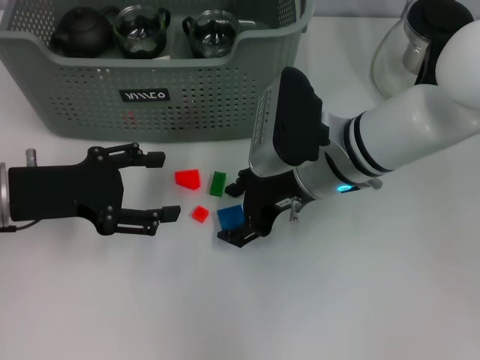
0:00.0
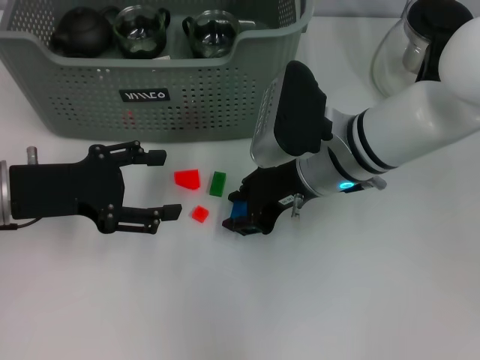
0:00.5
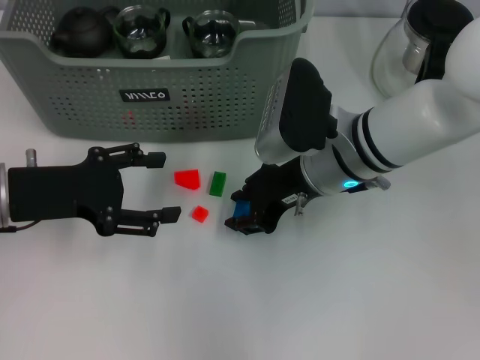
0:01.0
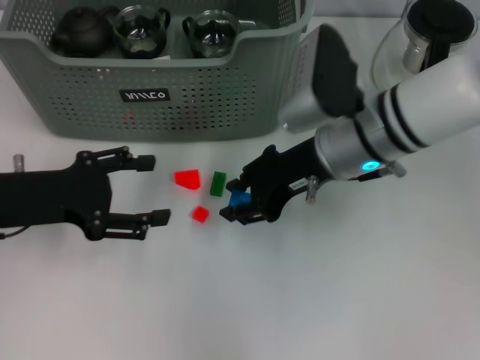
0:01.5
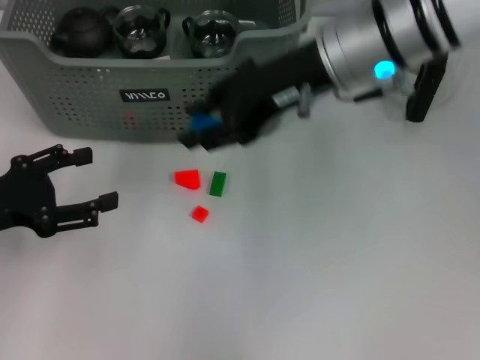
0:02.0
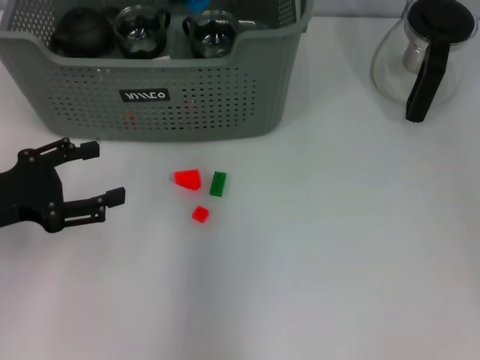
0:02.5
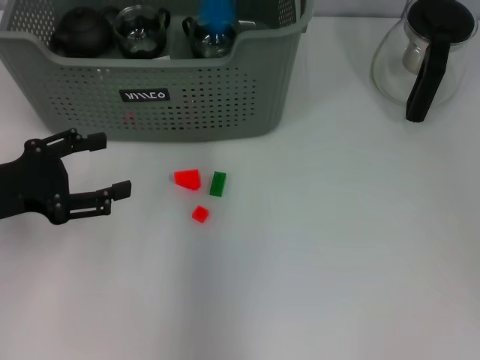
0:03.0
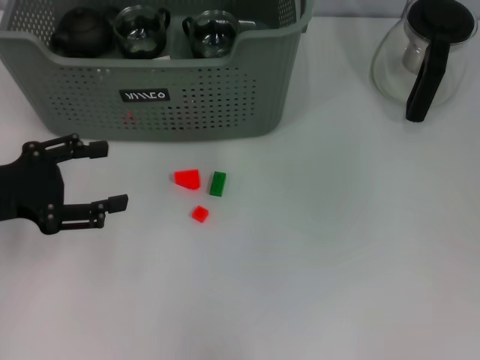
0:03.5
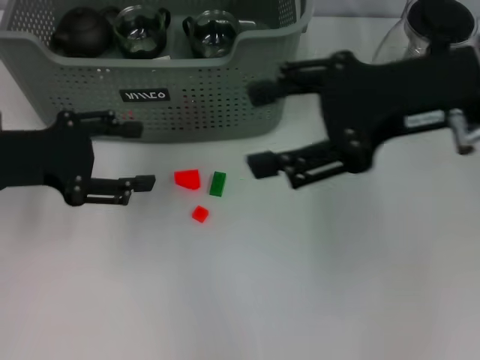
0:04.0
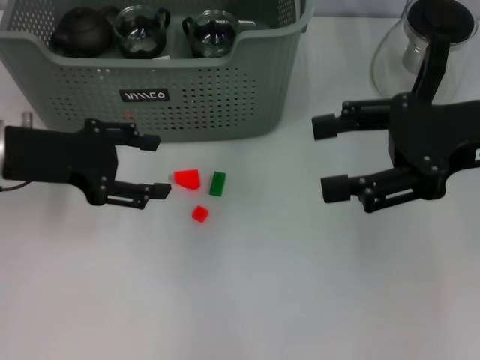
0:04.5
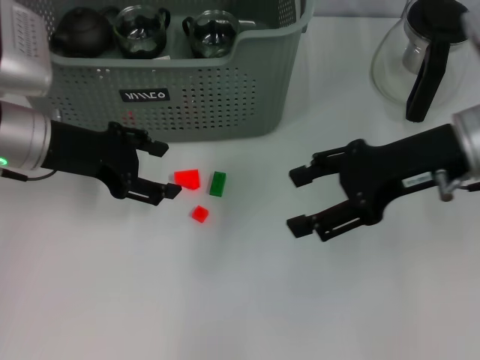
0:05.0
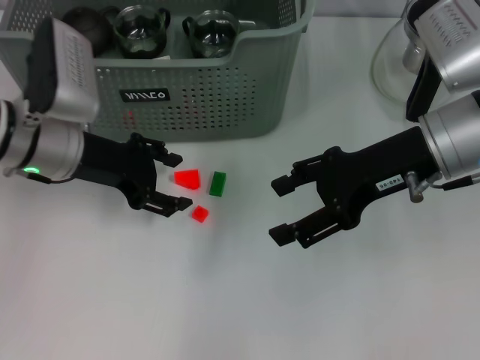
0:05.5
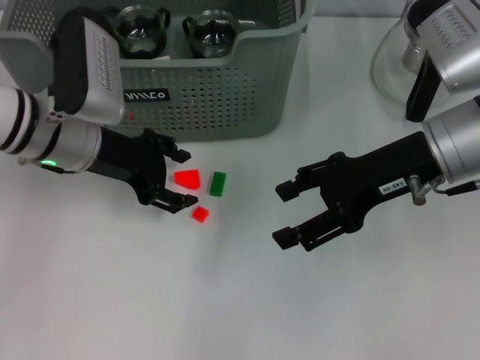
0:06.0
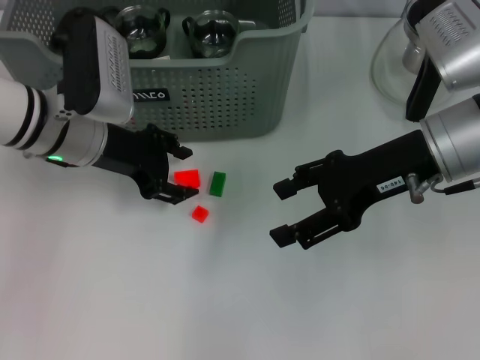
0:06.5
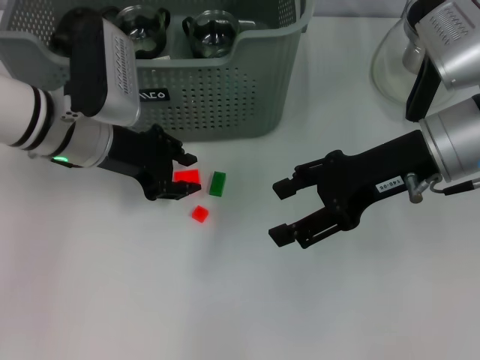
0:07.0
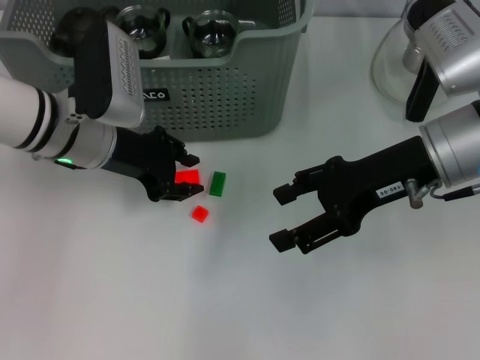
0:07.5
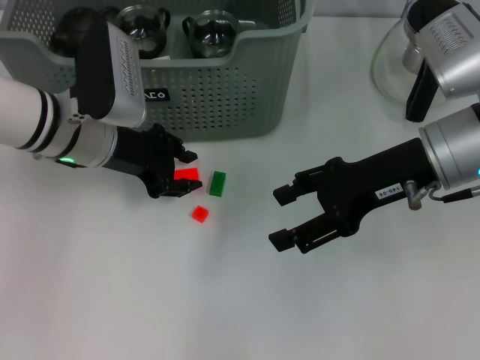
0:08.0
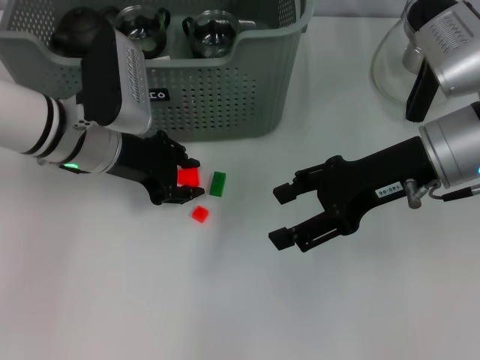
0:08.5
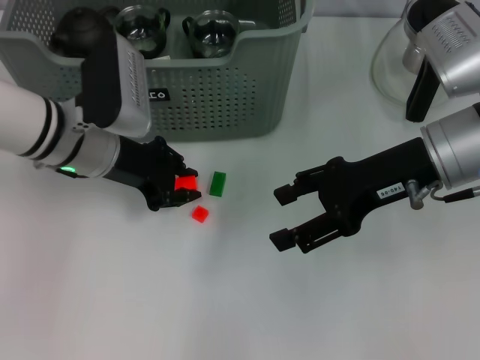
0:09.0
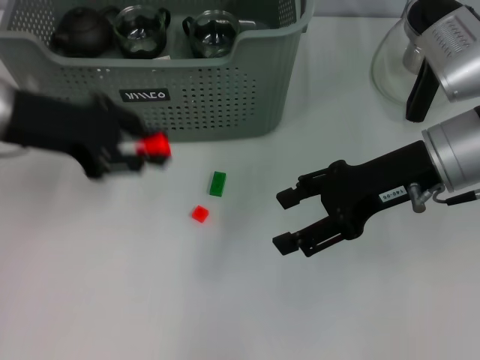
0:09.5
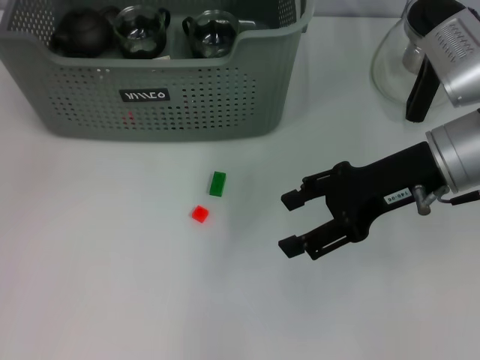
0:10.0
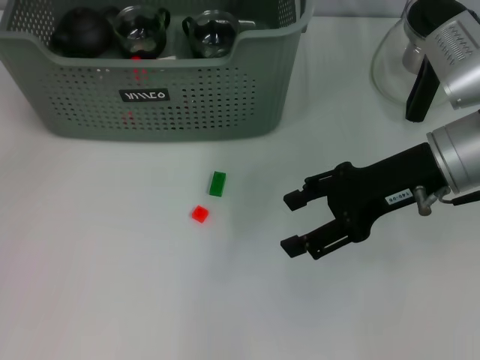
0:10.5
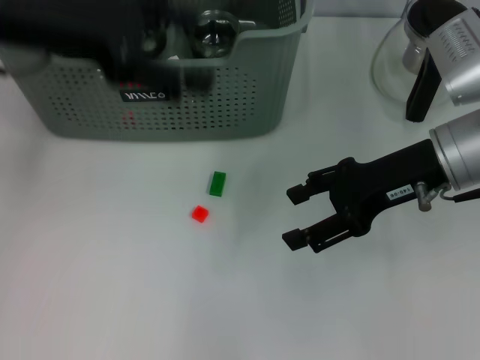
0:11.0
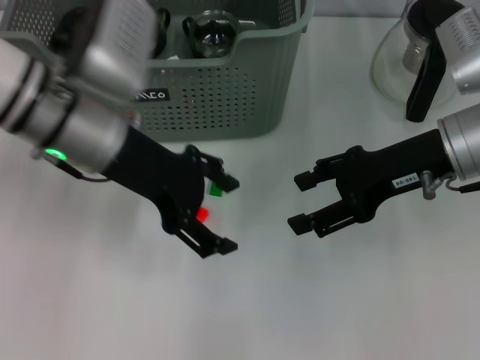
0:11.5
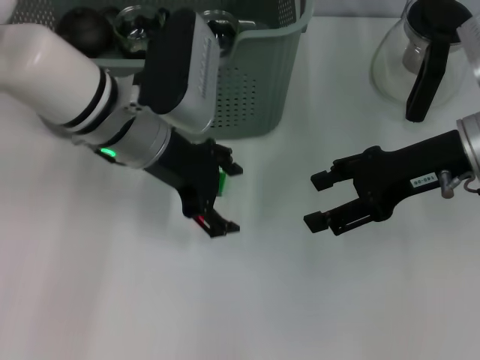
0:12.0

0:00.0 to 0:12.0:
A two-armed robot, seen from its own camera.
Task of the whole recording: pick up the teacup on the table and place it into the storage bin, pick up the block on the table and place it into the storage bin.
Step, 0:01.0 to 0:03.5: Place the dark blue block in the storage box with right gripper.
Step, 0:04.0 to 0:08.5: Grasp the orange block with left gripper.
Step, 0:09.0 to 0:10.5: Place the orange block in the storage box with left gripper.
0:00.0 to 0:02.0: The left gripper ends up about 5 cm from where it was, while the right gripper shifts approximately 15 cm upward, and closes its fingers.
0:02.0 to 0:04.0: The right gripper goes about 10 cm to the right and backward, and opens up; the left gripper travels forward by roughly 5 cm.
0:04.0 to 0:06.0: The right gripper moves downward, some 10 cm. The left gripper heads to the right and forward, covering roughly 10 cm.
0:06.0 to 0:08.0: The left gripper closes up.
0:08.0 to 0:10.0: The left gripper heads upward and to the left, covering some 15 cm.
0:10.0 to 0:12.0: The left gripper goes roughly 20 cm to the right and downward, and opens its fingers.

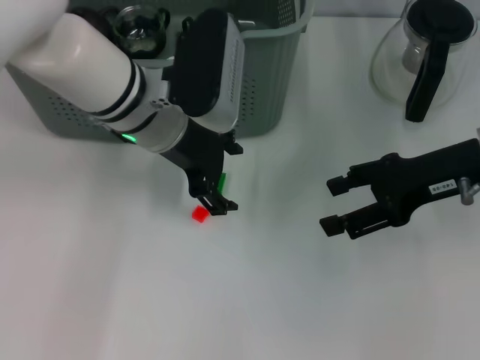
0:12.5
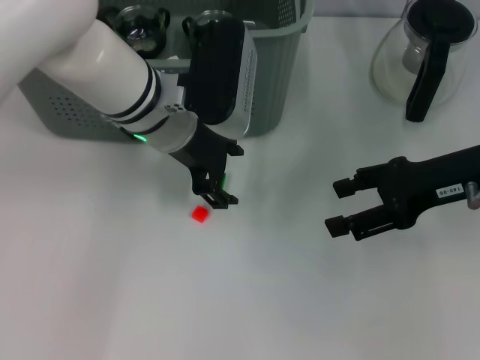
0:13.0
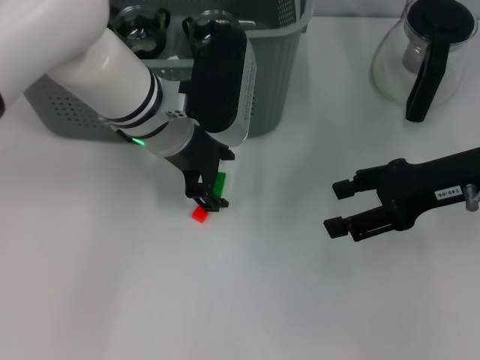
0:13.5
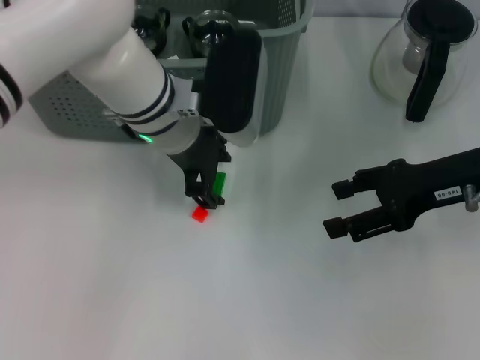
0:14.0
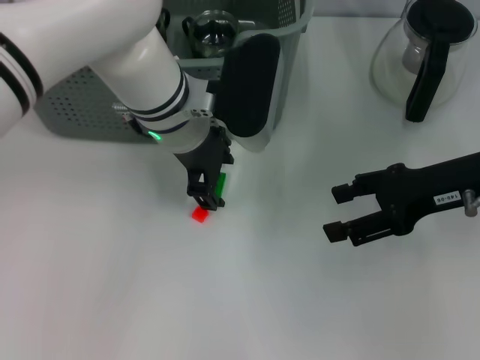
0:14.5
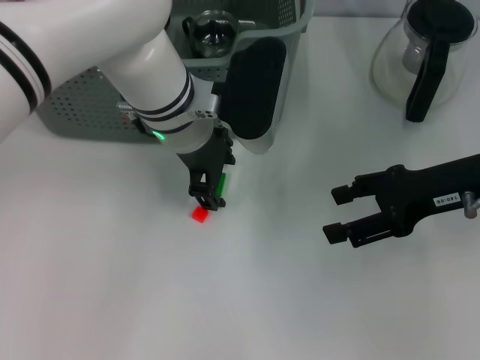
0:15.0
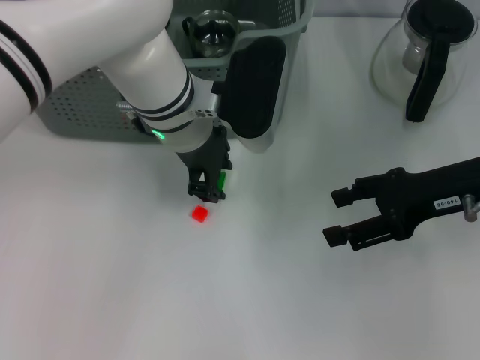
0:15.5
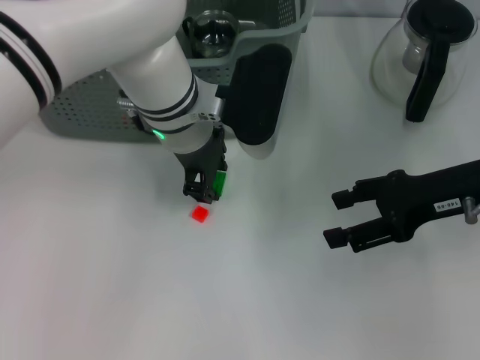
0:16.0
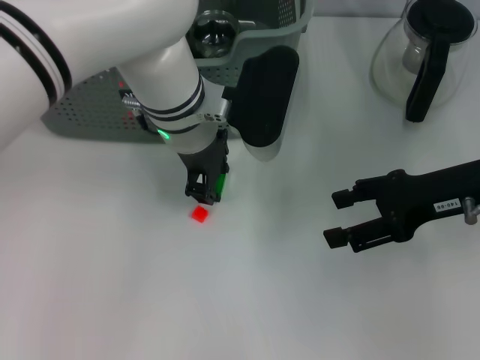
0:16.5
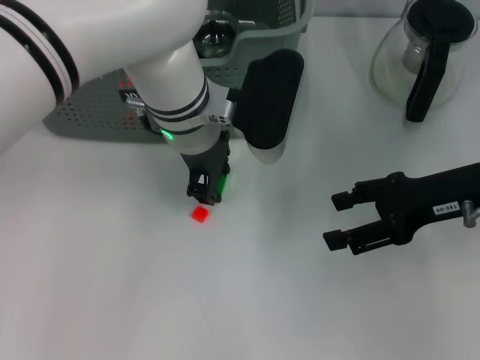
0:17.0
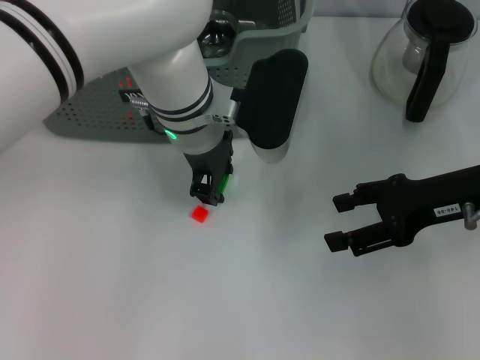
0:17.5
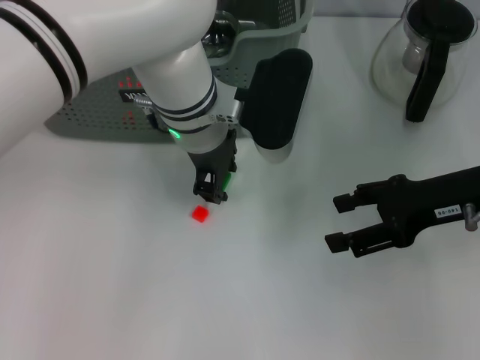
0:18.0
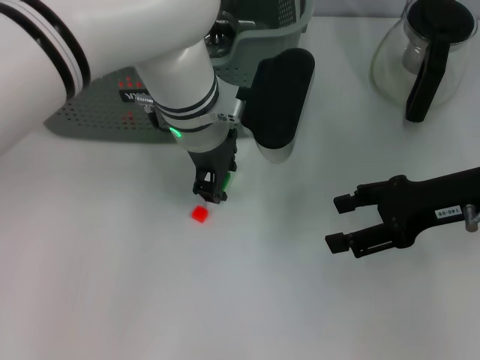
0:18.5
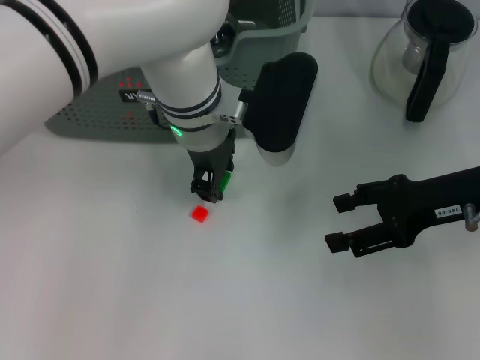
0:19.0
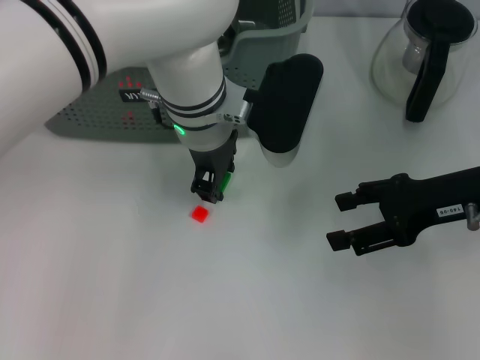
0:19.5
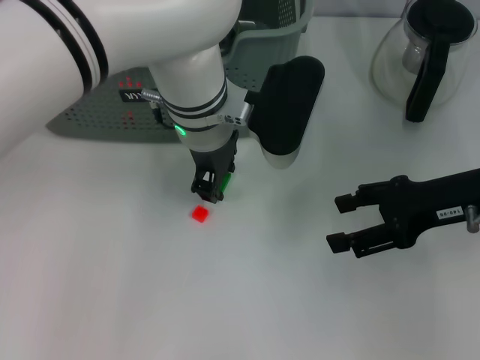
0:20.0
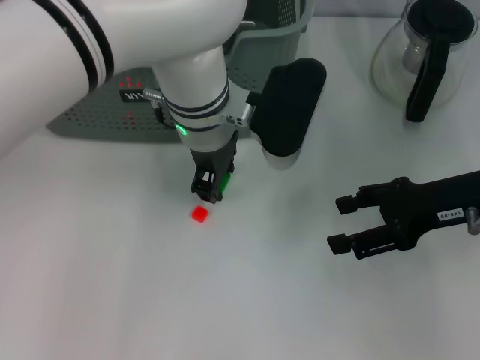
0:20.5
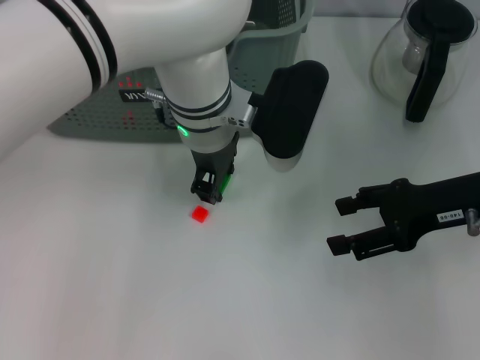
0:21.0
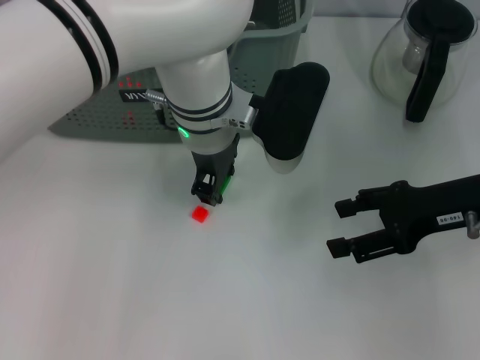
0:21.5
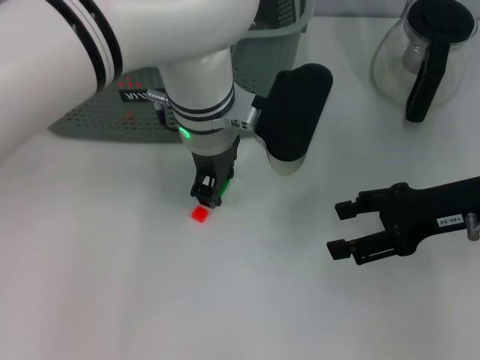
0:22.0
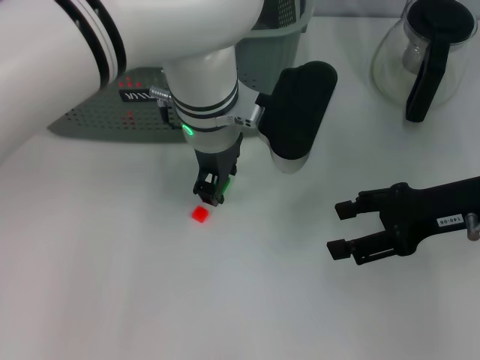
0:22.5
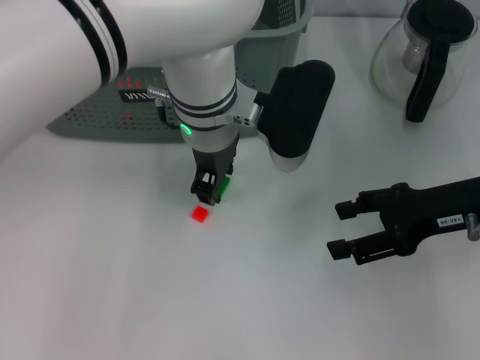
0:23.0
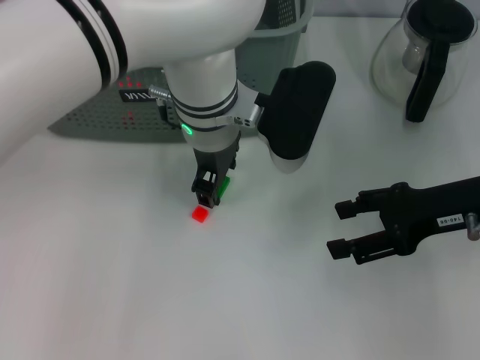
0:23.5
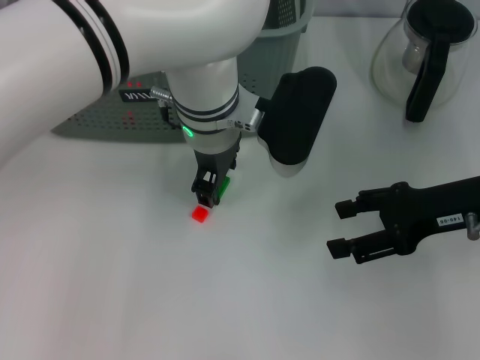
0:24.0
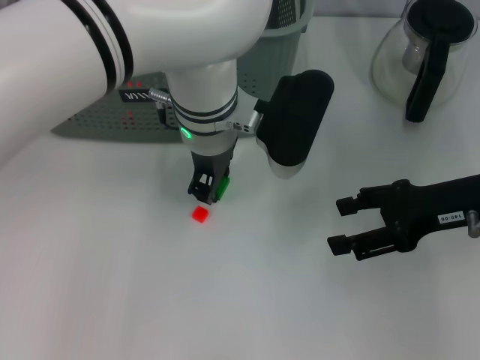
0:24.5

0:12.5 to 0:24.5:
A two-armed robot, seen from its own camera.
Task of the whole recording: pick up the teacup on the table and place it into the storage bin, pick up the block on the table and place it into the storage bin.
0:12.5 to 0:14.5: The grippers stay close to where they were, moving slightly.
0:14.5 to 0:16.5: The grippers stay close to where they were, moving slightly.
0:16.5 to 0:18.5: The two grippers keep their place.
0:18.5 to 0:20.5: There are only small adjustments of the grippers.
0:20.5 to 0:24.5: The two grippers keep their place.

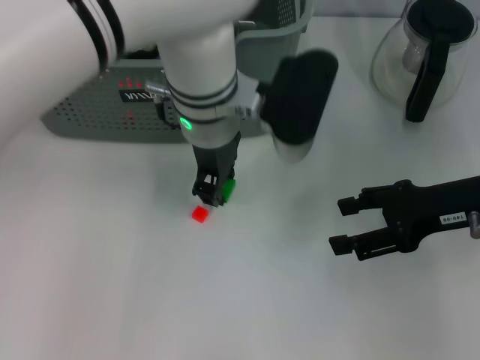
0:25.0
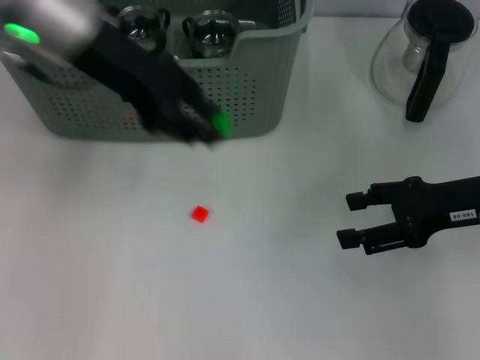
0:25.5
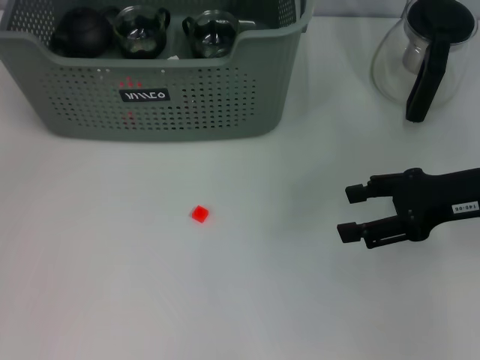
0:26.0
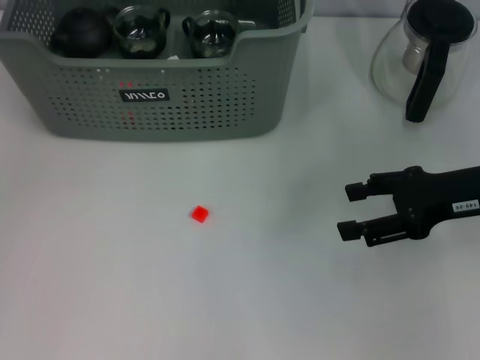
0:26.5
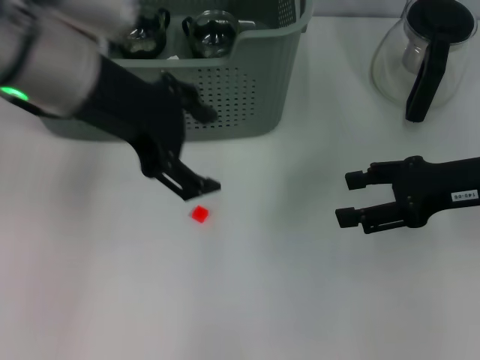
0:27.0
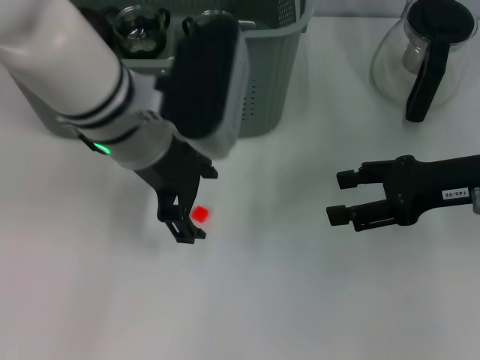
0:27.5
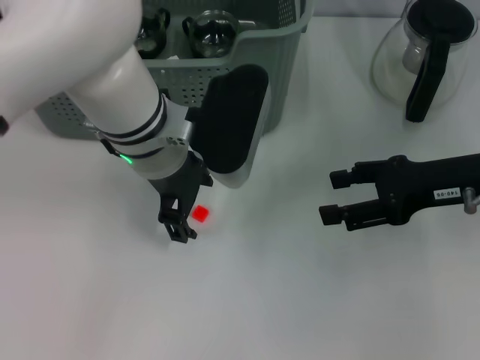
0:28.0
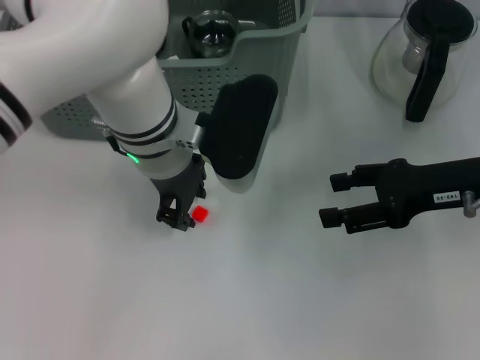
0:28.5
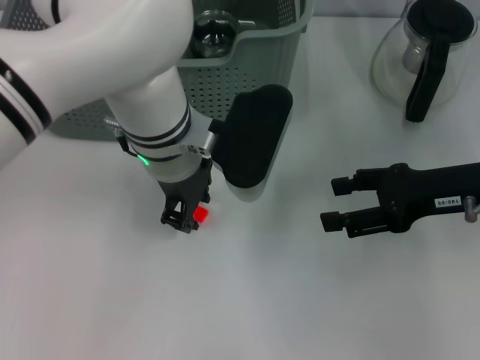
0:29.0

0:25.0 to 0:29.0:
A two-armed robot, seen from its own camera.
Task of the whole recording: pick up the teacup on the table and place it into the storage bin, pick up the block on the table and place it into the storage bin.
Step, 0:25.0 to 0:26.0: Place the green block in the storage box with left gripper.
0:25.0 to 0:27.0: The left gripper heads to the left, upward and backward, covering approximately 15 cm, and opens.
0:27.0 to 0:29.0: The left gripper heads downward and to the right, covering some 15 cm, and closes up.
